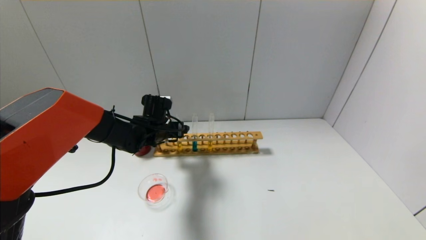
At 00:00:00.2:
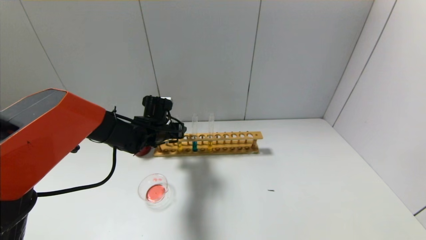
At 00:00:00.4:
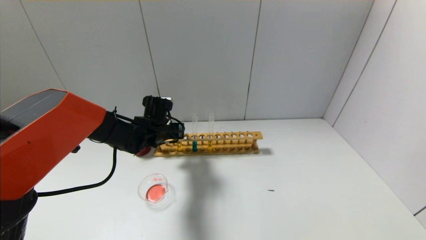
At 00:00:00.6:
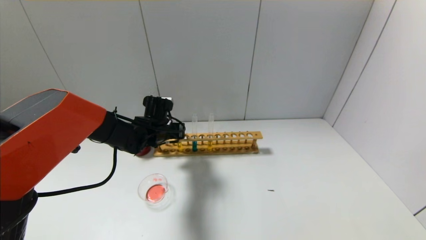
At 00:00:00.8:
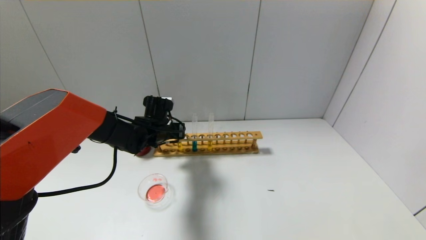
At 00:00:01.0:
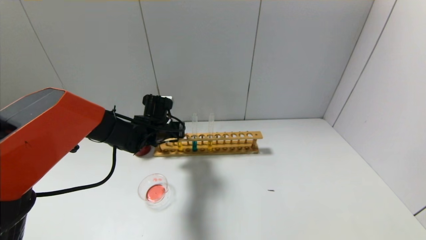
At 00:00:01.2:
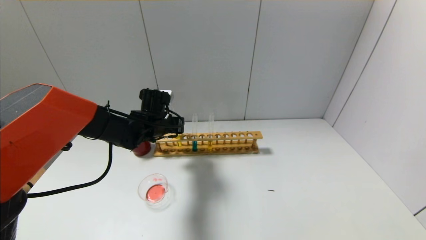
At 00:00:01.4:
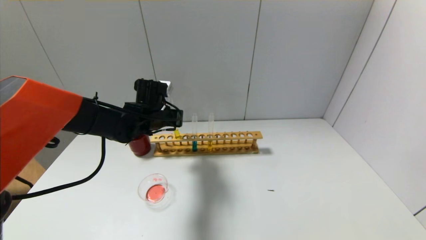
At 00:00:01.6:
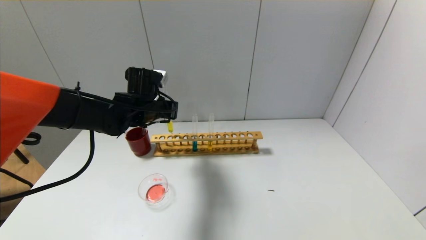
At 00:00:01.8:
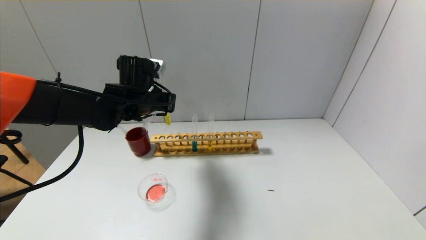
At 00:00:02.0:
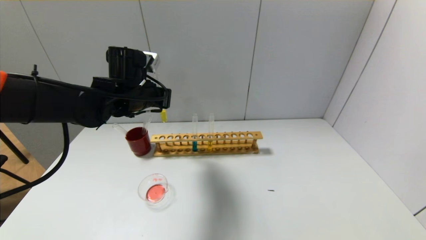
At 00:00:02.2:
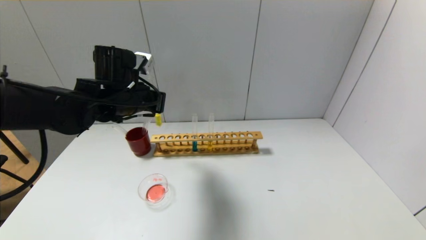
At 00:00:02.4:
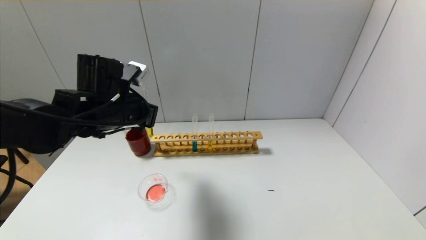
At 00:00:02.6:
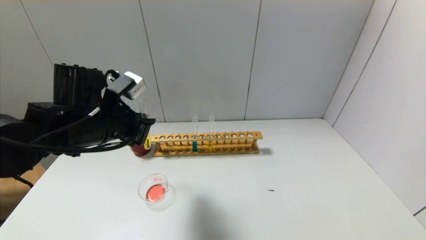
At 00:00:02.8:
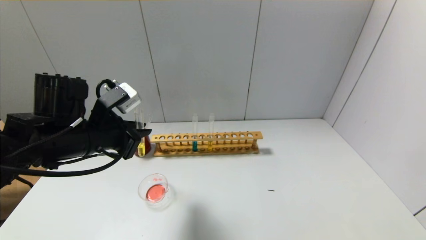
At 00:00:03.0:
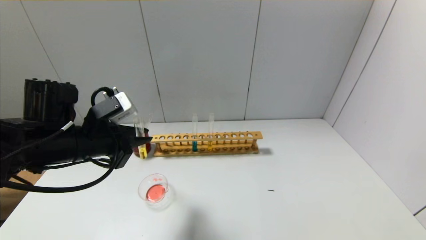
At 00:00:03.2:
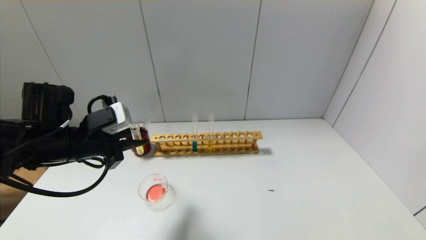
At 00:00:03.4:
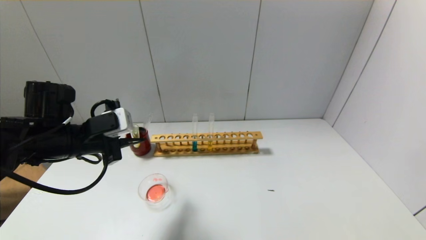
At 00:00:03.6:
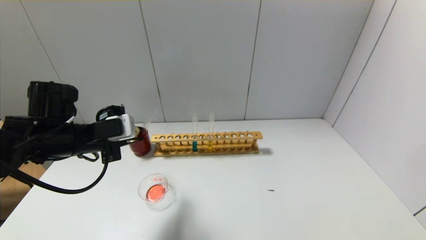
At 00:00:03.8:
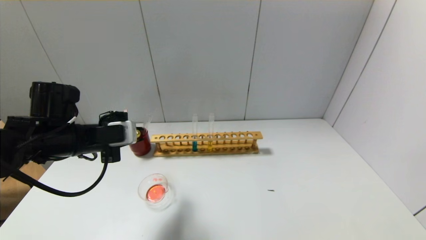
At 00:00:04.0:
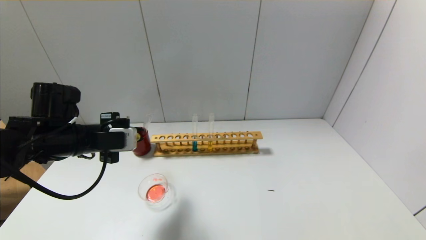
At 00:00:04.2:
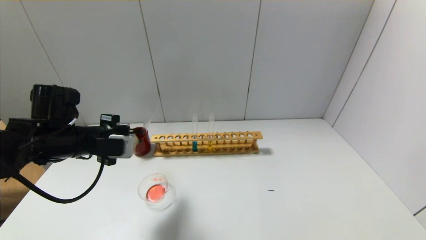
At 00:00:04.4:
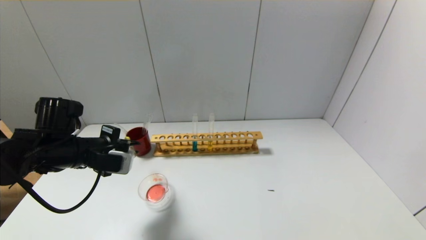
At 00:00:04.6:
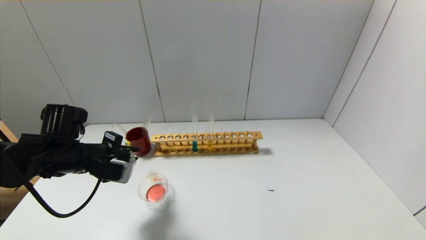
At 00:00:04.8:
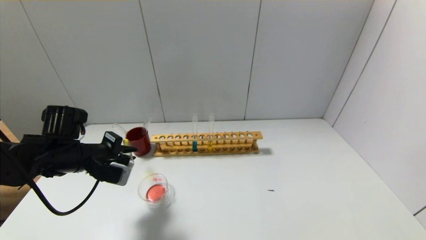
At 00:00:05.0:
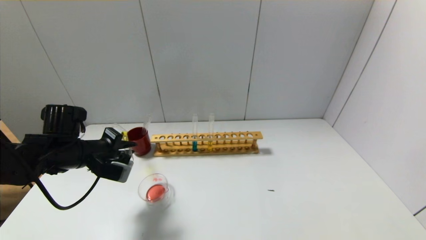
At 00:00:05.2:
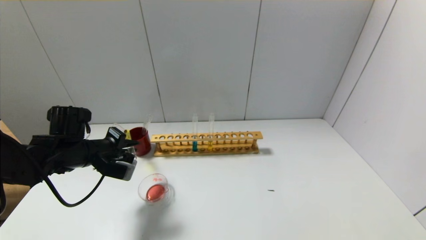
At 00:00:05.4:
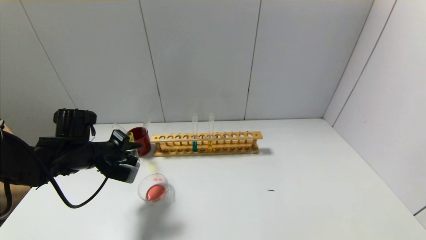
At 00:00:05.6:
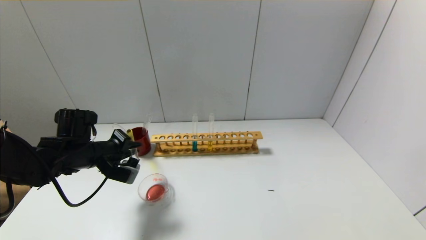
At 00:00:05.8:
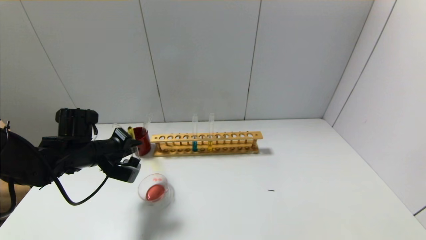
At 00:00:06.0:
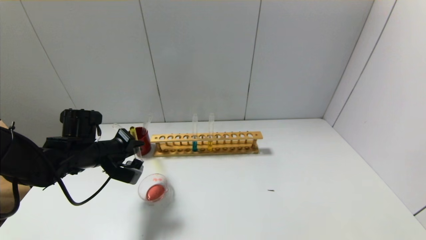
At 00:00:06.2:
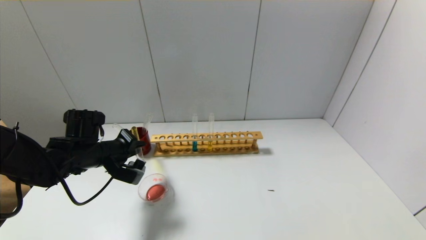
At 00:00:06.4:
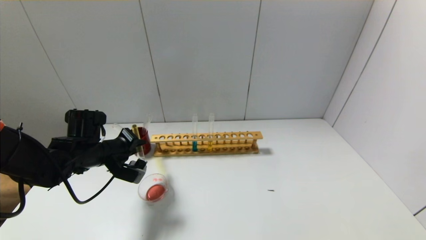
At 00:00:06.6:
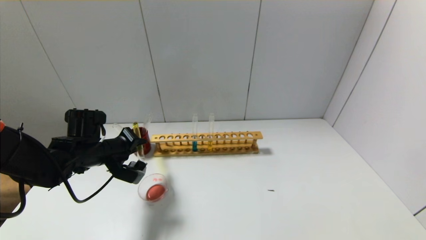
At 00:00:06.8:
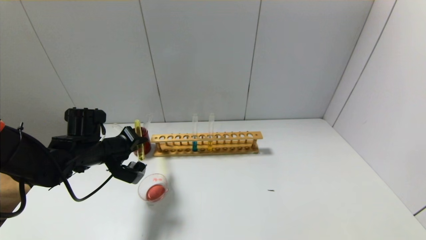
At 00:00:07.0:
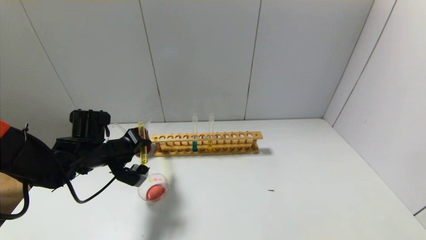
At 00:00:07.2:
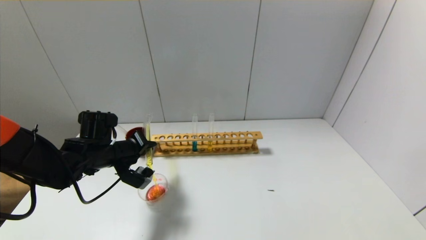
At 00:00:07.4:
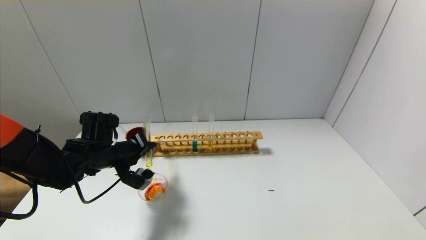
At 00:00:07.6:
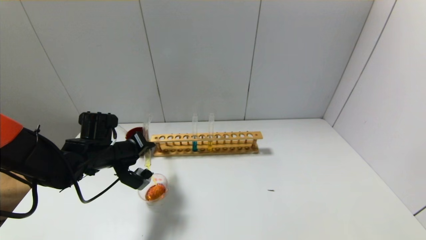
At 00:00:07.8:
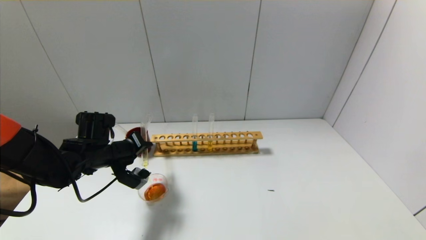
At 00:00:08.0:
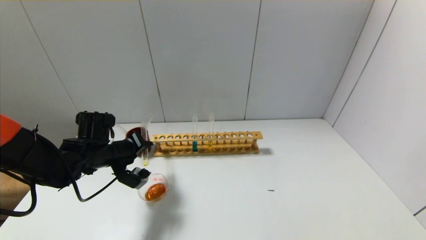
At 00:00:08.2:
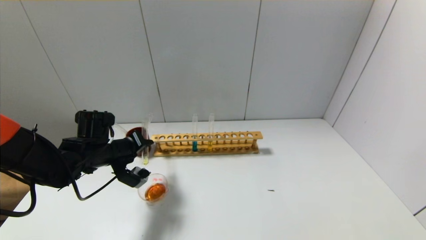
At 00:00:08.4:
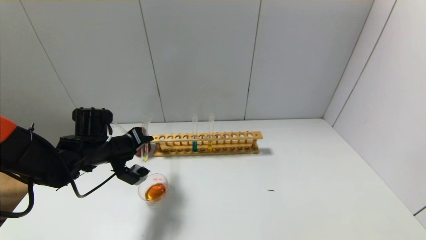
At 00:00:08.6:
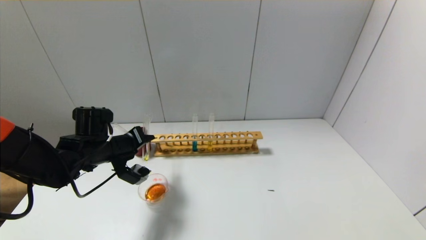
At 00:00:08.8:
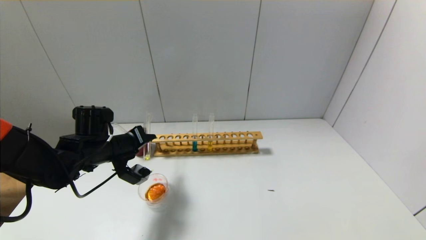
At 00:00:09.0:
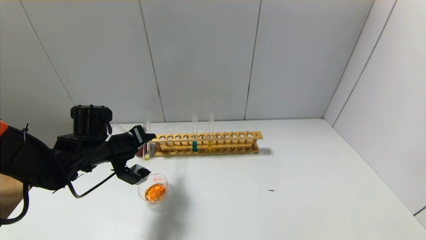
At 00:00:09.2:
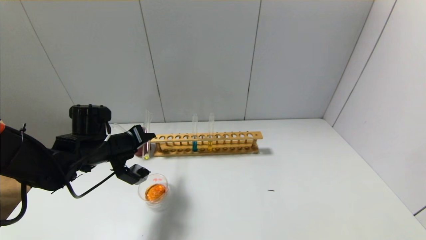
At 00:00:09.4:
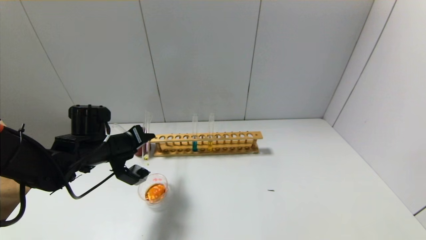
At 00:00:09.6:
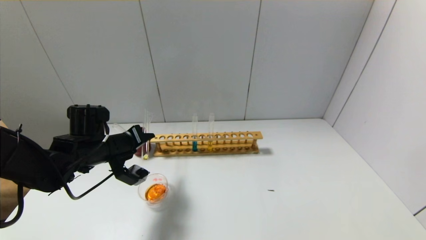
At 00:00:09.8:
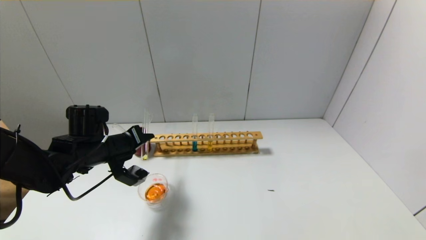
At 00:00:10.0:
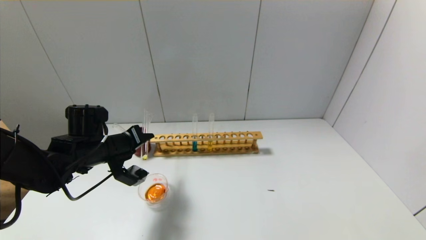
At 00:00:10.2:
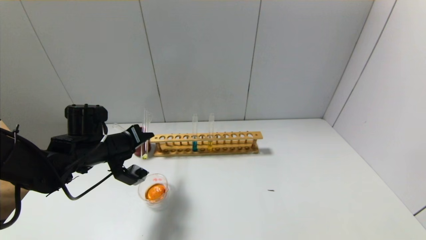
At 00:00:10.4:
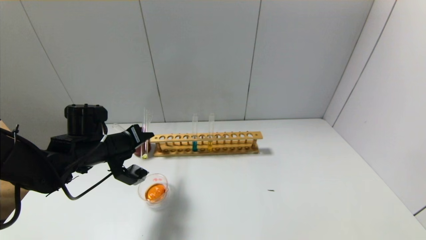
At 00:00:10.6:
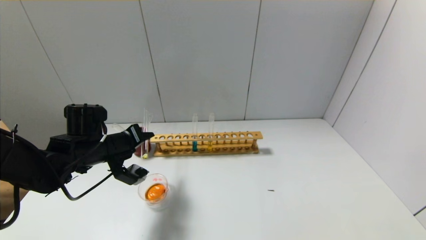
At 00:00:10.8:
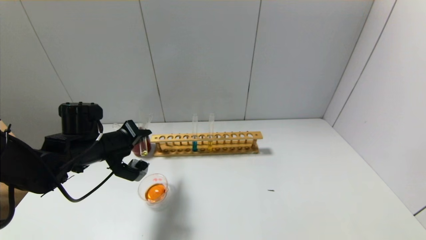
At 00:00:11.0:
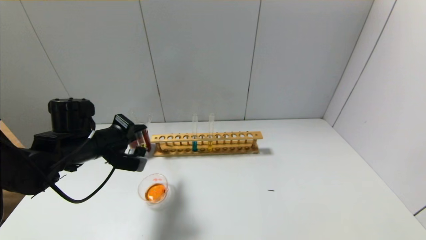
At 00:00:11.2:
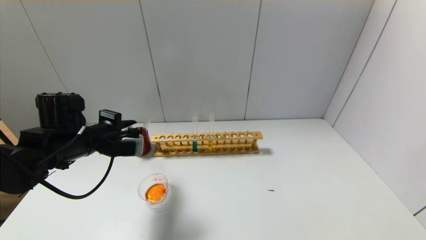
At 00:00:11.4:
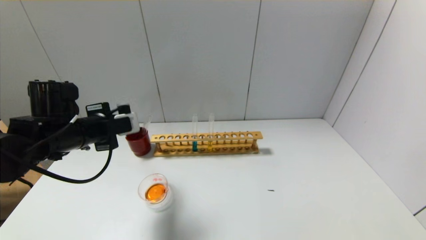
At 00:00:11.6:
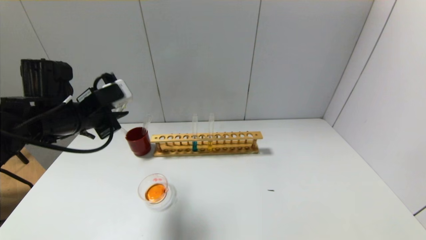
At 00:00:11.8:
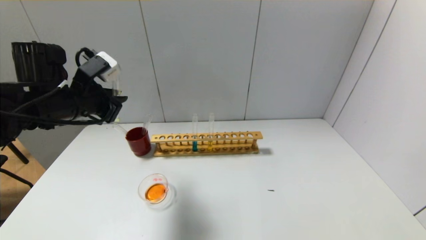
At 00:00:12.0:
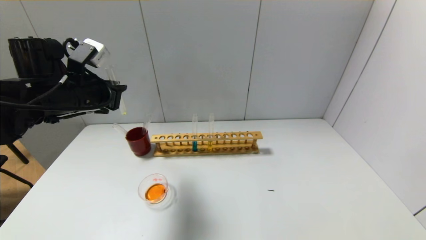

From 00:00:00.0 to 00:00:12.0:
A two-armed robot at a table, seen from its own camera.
Step, from 00:00:00.8 to 00:00:10.8: Pour the yellow reagent into the graduated cylinder with the left gripper.
From 00:00:00.0 to 00:00:01.6: The left gripper goes some 10 cm upward, and closes.
From 00:00:01.6 to 00:00:03.0: The left gripper goes approximately 15 cm backward and to the left.
From 00:00:03.0 to 00:00:04.4: The left gripper changes place by some 5 cm.
From 00:00:04.4 to 00:00:06.0: The left gripper ends up some 5 cm from where it was.
From 00:00:06.0 to 00:00:07.6: There are only small adjustments of the grippers.
From 00:00:07.6 to 00:00:09.0: There are only small adjustments of the grippers.
From 00:00:09.0 to 00:00:10.4: Neither gripper changes place.
From 00:00:10.4 to 00:00:12.0: The left gripper moves upward, roughly 10 cm.

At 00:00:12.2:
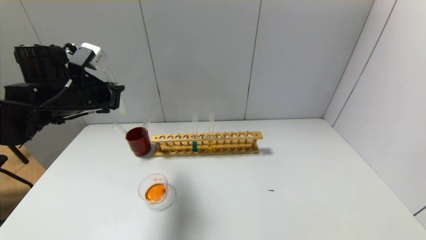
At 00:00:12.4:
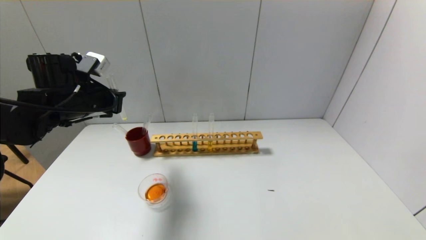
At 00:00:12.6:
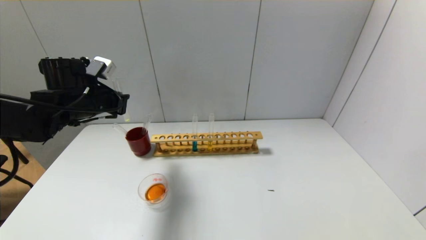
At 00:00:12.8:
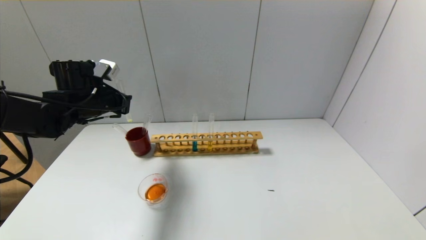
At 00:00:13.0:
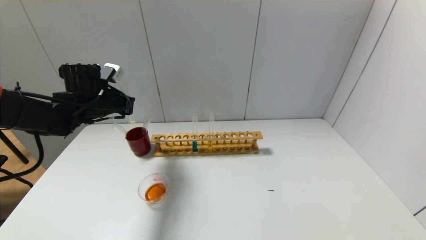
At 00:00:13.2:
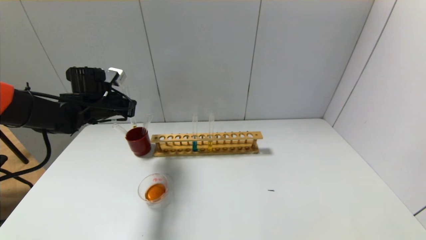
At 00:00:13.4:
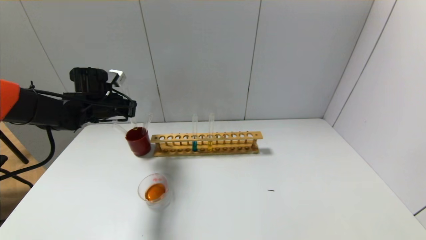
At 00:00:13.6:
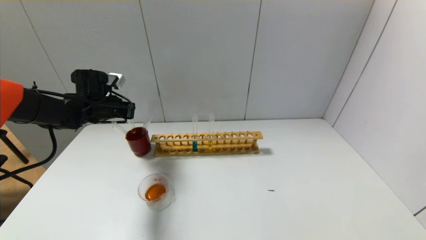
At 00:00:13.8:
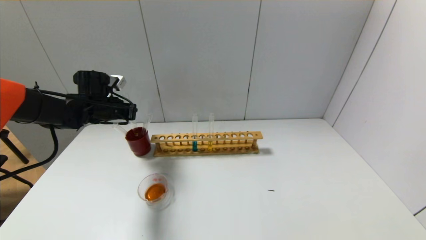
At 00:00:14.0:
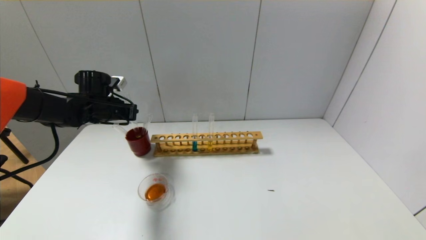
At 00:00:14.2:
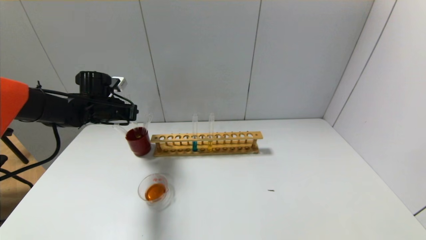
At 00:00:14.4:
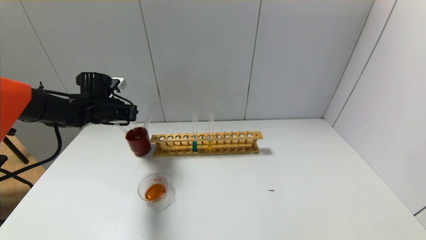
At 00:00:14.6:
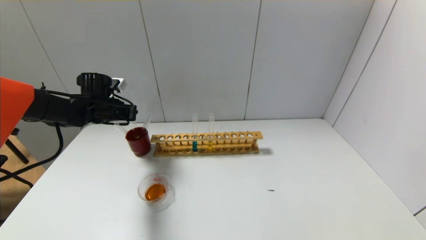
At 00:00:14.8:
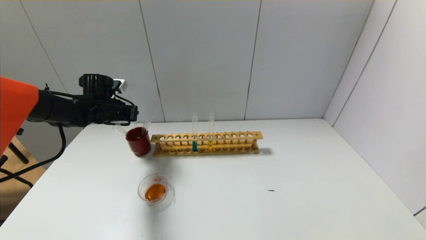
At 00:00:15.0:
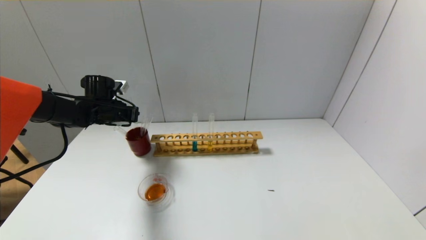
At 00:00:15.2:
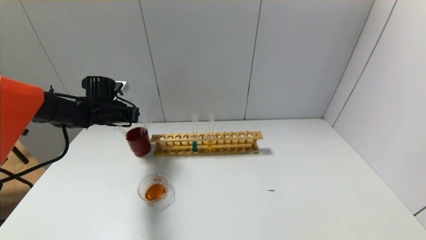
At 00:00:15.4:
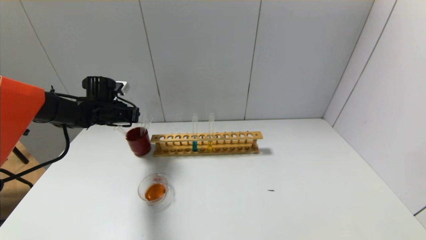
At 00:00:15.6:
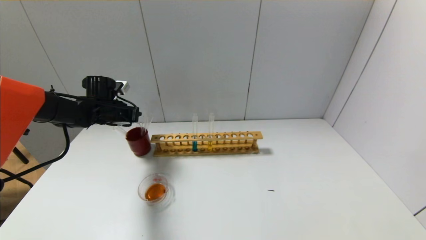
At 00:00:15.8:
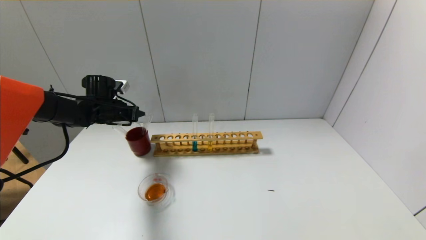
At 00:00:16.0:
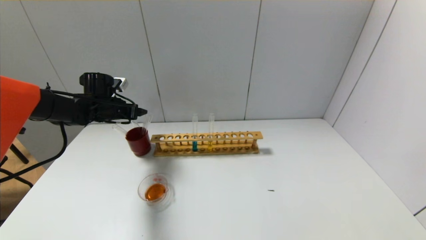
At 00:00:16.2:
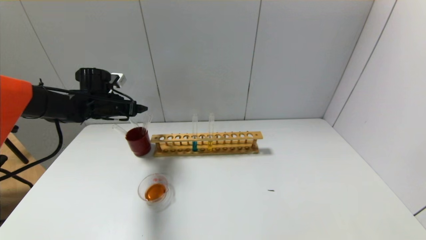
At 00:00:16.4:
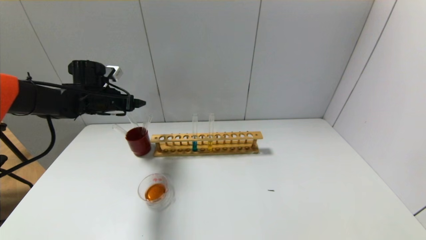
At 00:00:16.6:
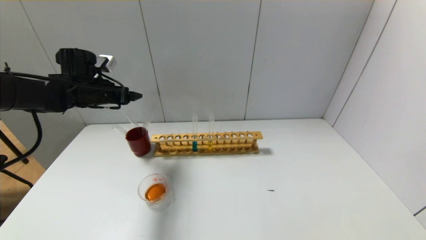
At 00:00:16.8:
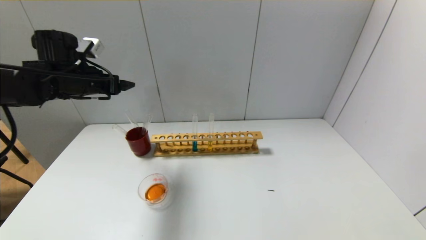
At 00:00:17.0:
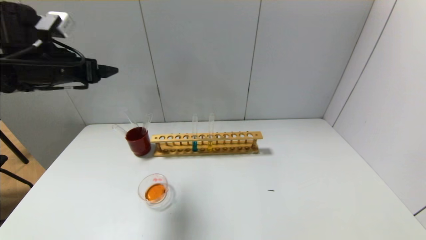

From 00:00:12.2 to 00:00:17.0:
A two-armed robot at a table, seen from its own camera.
Step, from 00:00:12.2 to 00:00:15.8: Place the test tube into the brown cup with the left gripper.
From 00:00:12.2 to 00:00:13.8: The left gripper goes about 10 cm forward and downward.
From 00:00:13.8 to 00:00:15.4: The grippers move only a little.
From 00:00:15.4 to 00:00:17.0: The left gripper goes about 20 cm upward and backward, and opens.
